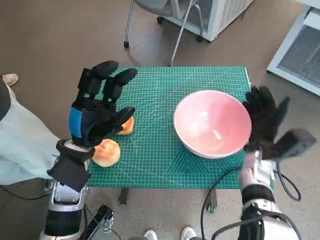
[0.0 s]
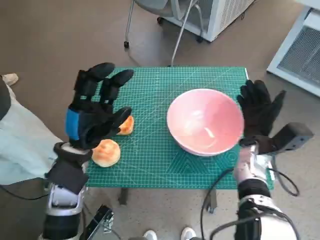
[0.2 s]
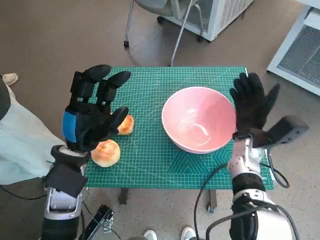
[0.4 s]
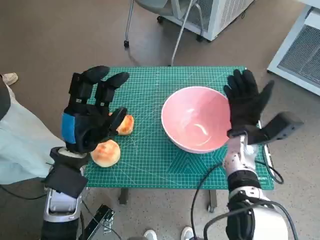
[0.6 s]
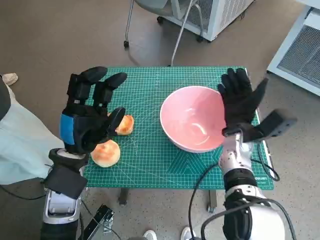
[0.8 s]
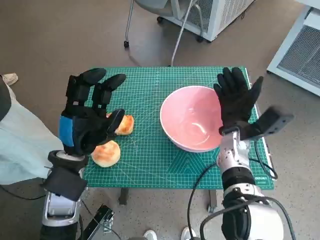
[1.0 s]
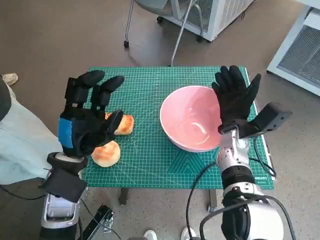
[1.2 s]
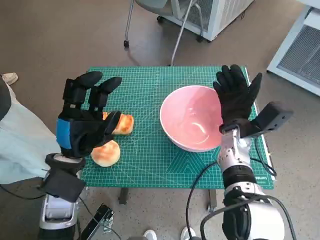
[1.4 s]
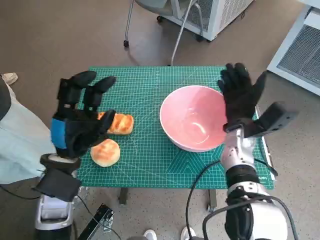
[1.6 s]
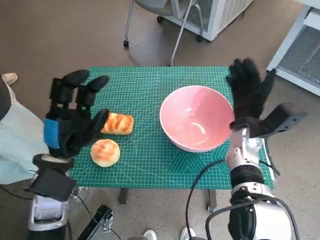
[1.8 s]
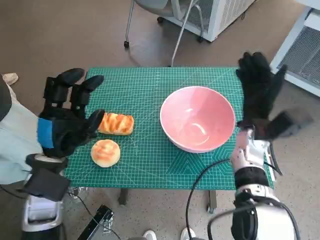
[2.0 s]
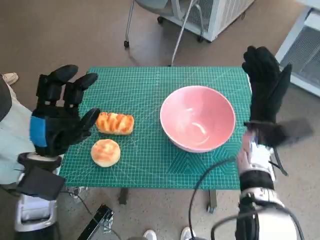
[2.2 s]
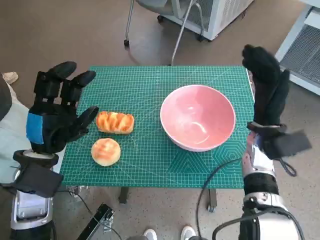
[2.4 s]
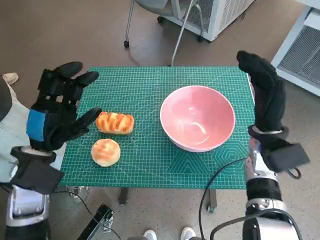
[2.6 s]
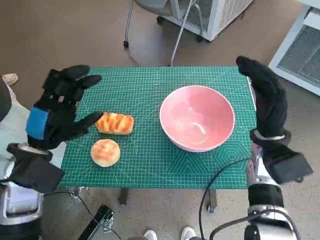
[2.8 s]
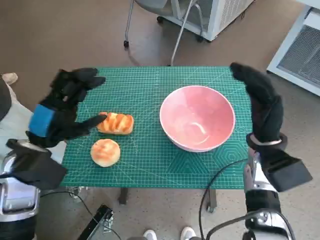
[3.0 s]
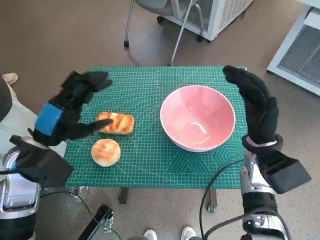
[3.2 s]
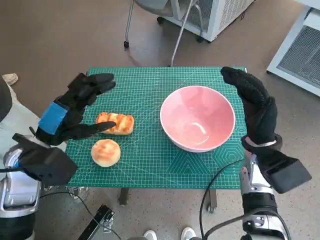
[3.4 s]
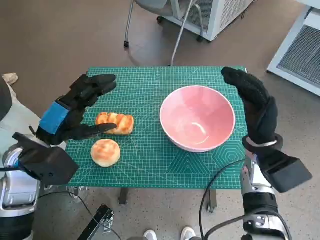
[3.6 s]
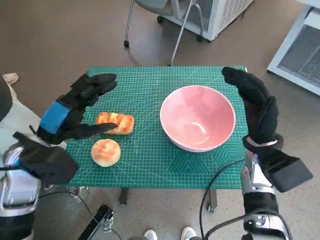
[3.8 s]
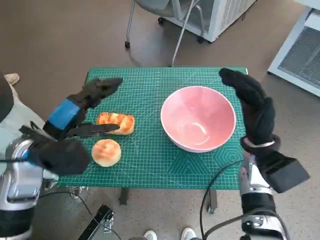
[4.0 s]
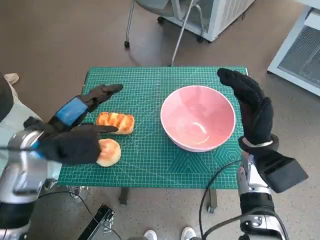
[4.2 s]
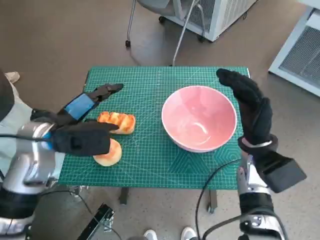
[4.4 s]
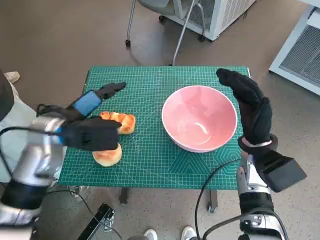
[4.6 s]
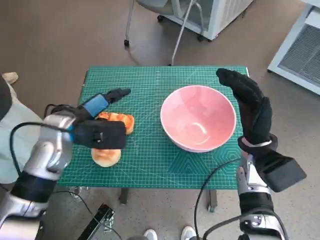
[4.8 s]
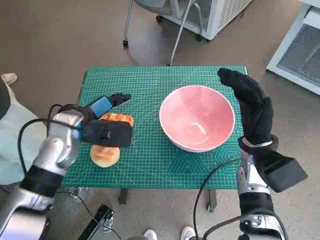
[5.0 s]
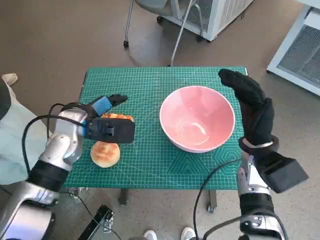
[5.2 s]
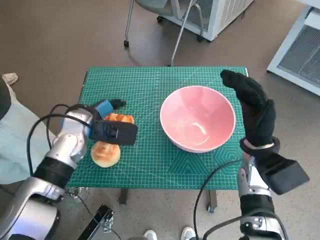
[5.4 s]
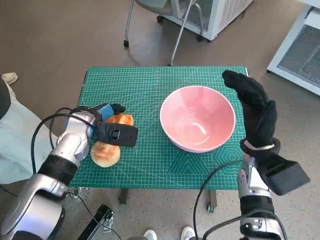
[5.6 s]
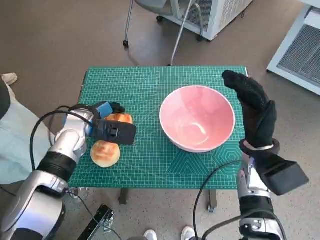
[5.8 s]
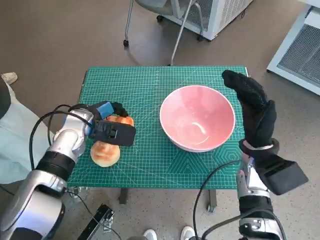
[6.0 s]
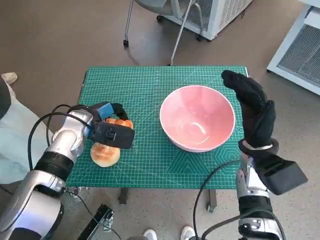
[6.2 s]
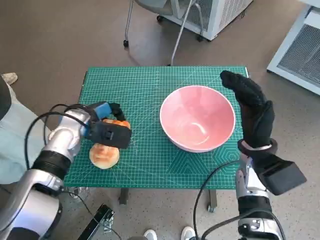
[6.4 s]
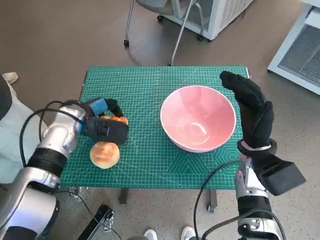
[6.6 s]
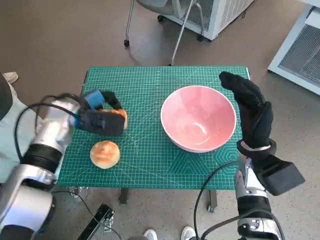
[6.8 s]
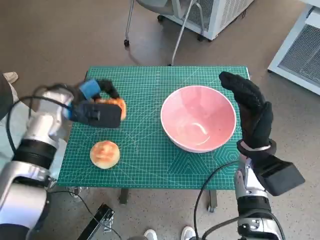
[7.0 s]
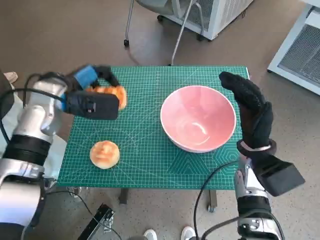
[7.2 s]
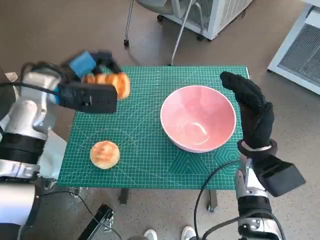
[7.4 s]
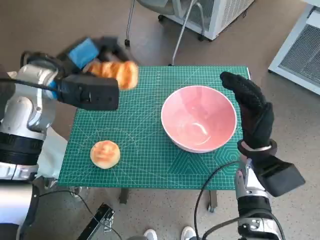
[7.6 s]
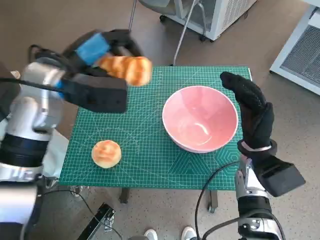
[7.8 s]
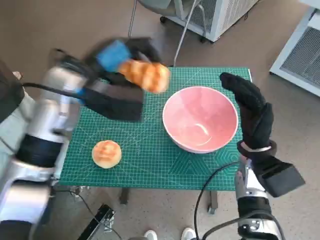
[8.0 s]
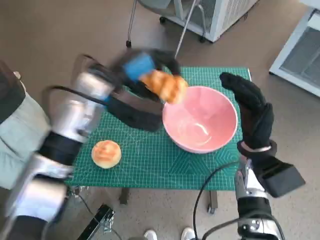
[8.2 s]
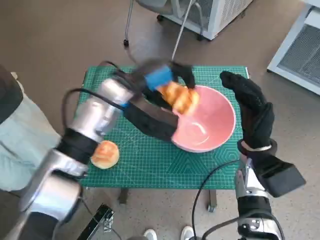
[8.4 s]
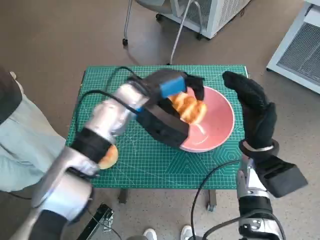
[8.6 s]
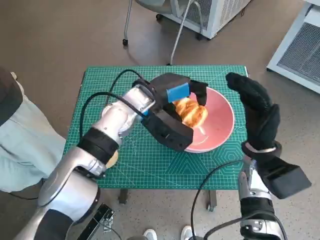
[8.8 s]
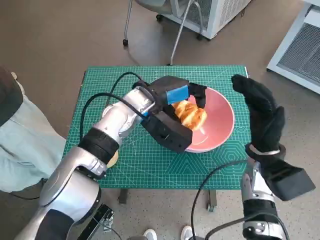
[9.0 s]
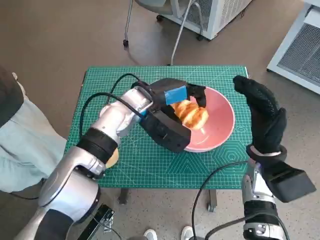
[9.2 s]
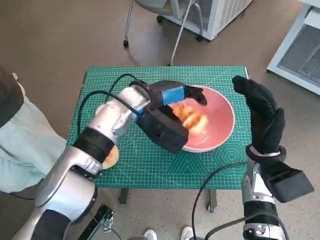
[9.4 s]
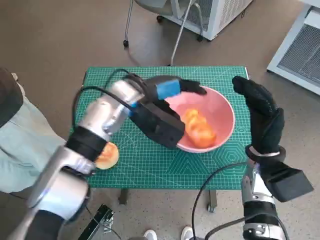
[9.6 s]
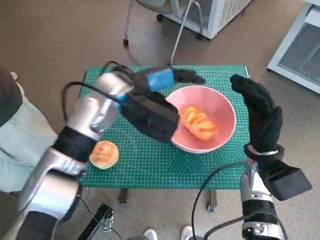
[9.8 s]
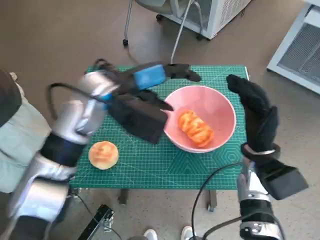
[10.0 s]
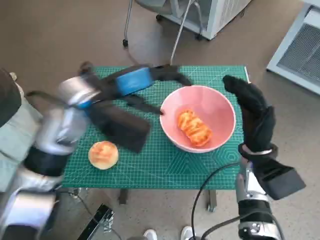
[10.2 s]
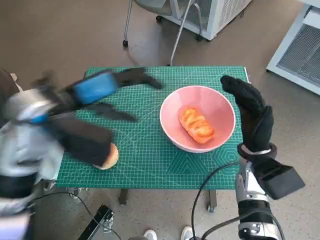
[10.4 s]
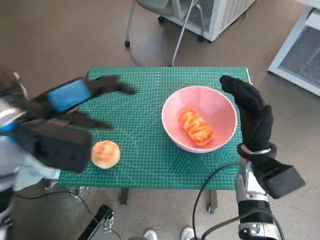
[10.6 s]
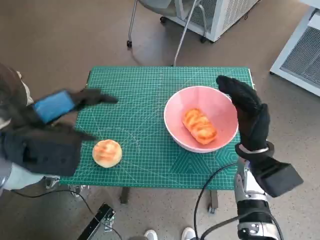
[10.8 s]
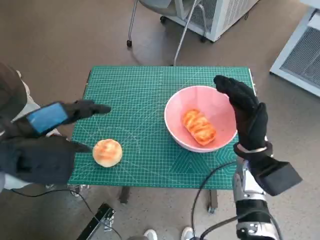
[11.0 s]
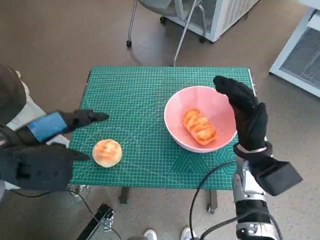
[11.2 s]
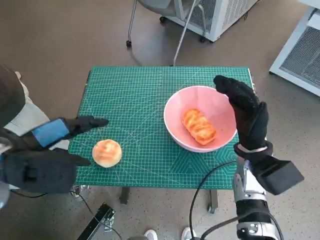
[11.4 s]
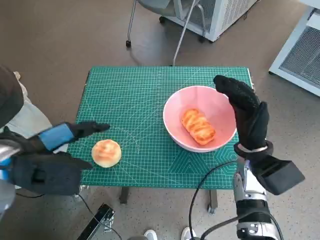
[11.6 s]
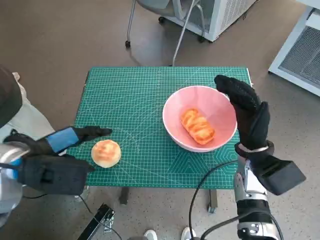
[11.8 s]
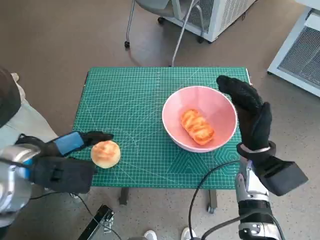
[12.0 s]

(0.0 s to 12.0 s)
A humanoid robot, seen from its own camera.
Task of the whole recording: Push the bowl to the center of the table and put the bread into the bowl.
Step, 0.0 s - 2.0 s: Move the pink bowl to the center of table with right hand.
Step, 2.2 s - 6.2 s: Grasp the long bread with left hand.
Step, 6.4 s - 9.6 s: Place the long bread in pink bowl with left hand.
0.0 s - 1.6 s: The right hand travels to the left by about 5 cm.
1.6 s - 3.0 s: The right hand ends up some 5 cm from where it was. Meanwhile the left hand moves to the left, approximately 5 cm.
3.0 s - 4.4 s: The left hand ends up some 5 cm from where it was.
4.4 s - 6.0 s: The left hand heads forward and downward, covering approximately 10 cm.
6.0 s - 7.6 s: The left hand heads upward, covering about 10 cm.
7.6 s - 9.0 s: The left hand shifts approximately 15 cm to the right and downward.
9.0 s - 10.4 s: The left hand is displaced to the left, upward and backward by about 15 cm.
10.4 s - 12.0 s: The left hand goes some 10 cm to the left, downward and backward.

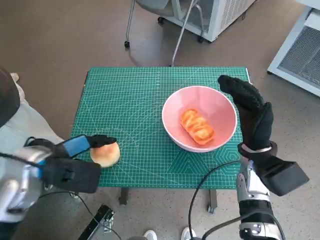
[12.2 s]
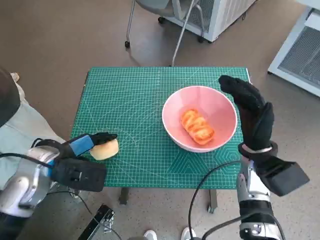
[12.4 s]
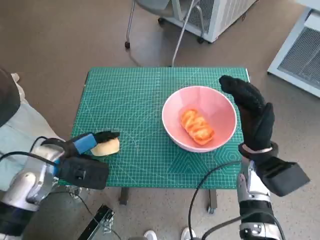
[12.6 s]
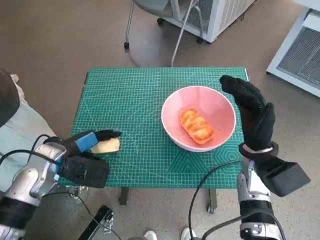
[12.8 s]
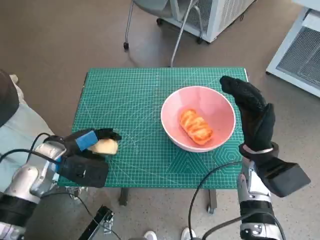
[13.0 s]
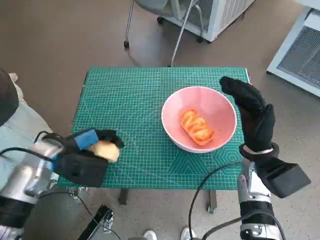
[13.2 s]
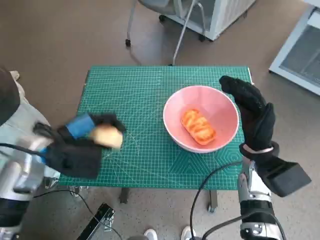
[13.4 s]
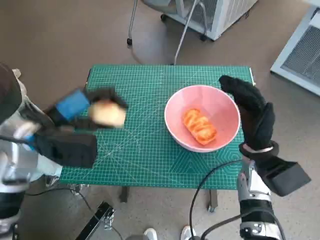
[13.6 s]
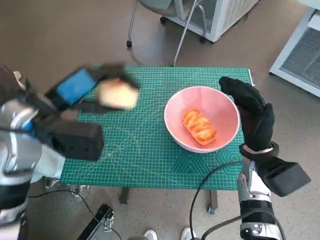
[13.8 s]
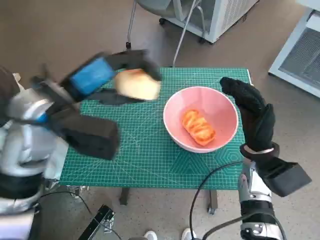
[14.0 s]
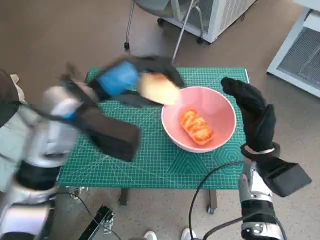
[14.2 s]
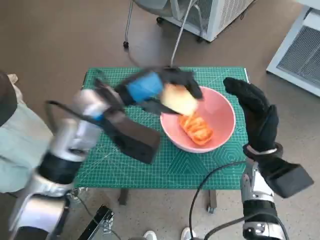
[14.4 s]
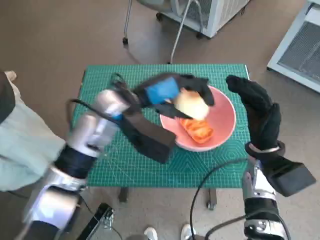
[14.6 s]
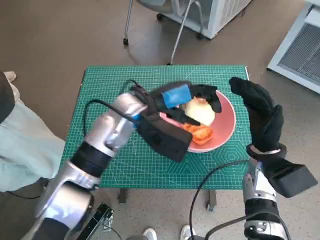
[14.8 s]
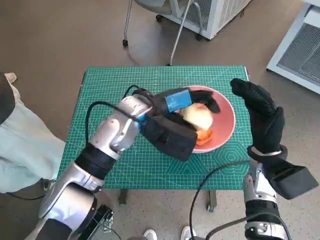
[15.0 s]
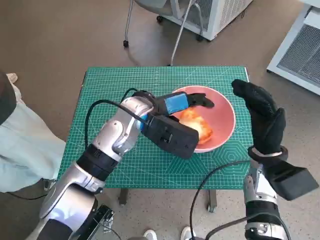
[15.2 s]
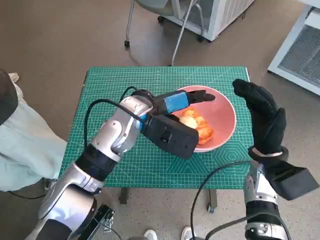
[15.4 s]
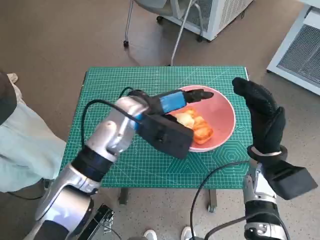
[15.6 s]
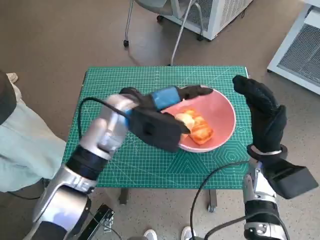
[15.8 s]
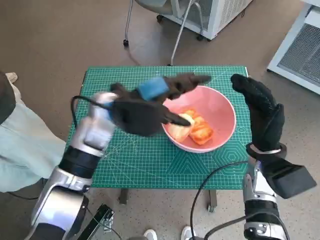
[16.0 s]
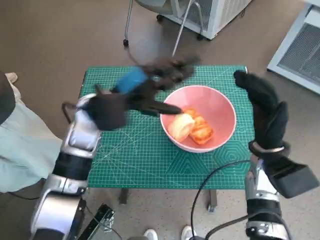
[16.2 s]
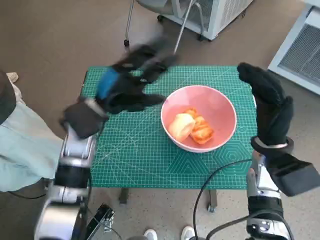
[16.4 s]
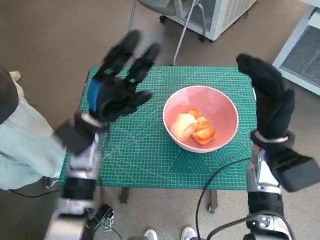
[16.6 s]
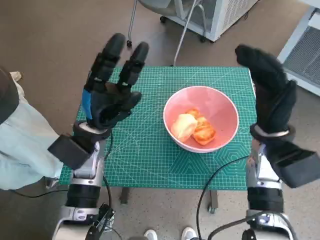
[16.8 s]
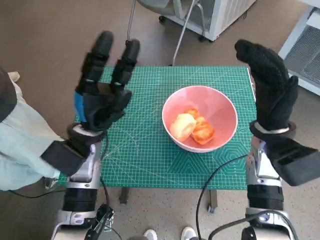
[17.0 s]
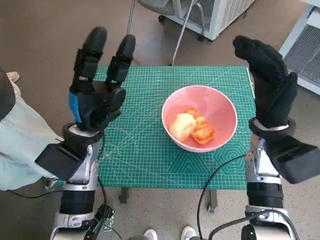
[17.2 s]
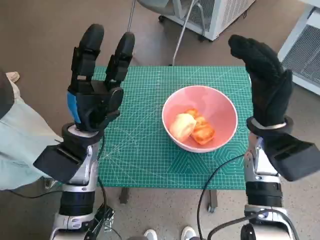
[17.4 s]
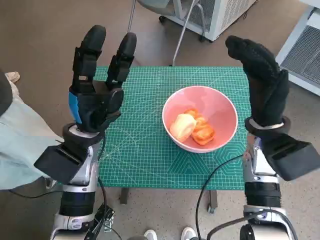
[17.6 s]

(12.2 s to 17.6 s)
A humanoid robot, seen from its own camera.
Task of the whole recording: Push the bowl to the center of the table and put the bread into the bowl.
Step, 13.2 s - 15.6 s: Place the round bread in pink bowl with left hand.
13.6 s - 15.0 s: The left hand heads to the right, covering roughly 15 cm.
15.0 s - 16.2 s: The left hand moves to the left, some 5 cm.
16.2 s - 17.6 s: The left hand goes about 5 cm backward. Meanwhile the right hand travels upward by some 5 cm.

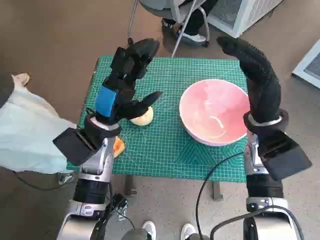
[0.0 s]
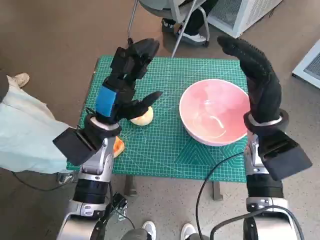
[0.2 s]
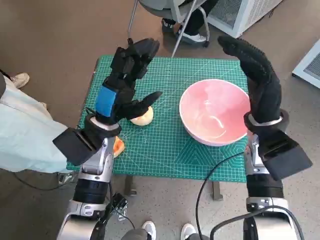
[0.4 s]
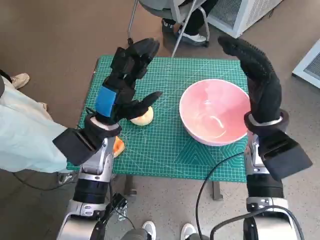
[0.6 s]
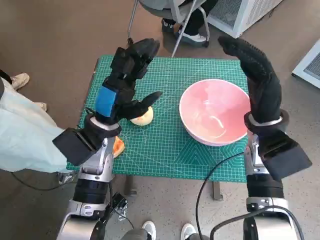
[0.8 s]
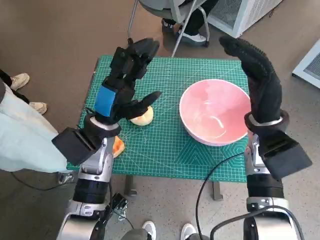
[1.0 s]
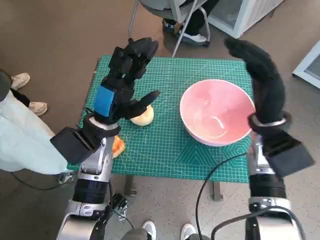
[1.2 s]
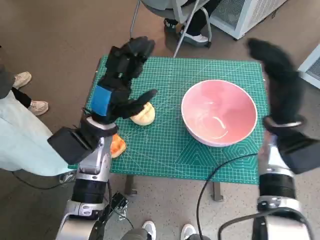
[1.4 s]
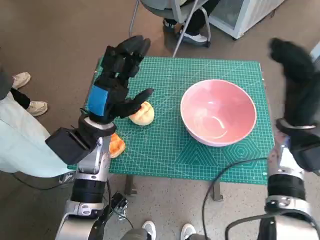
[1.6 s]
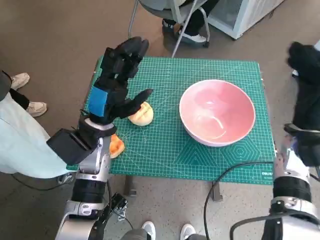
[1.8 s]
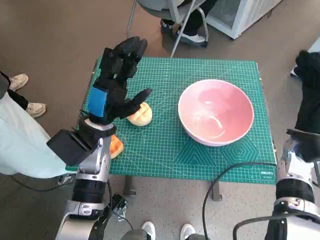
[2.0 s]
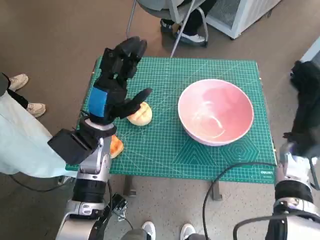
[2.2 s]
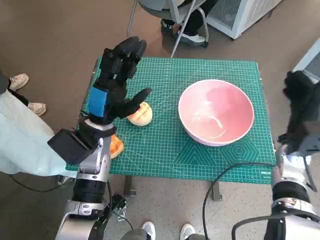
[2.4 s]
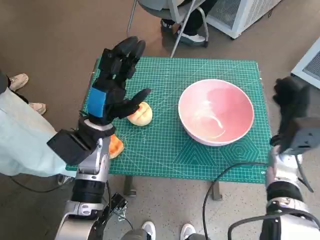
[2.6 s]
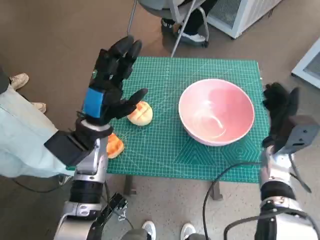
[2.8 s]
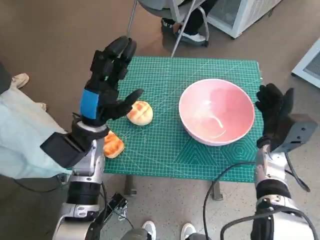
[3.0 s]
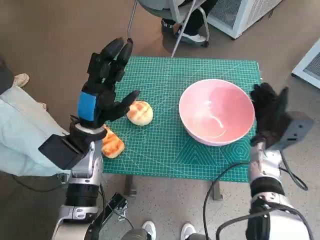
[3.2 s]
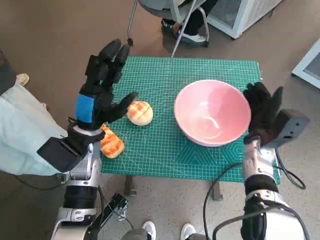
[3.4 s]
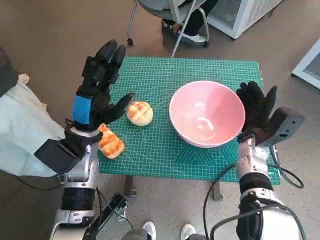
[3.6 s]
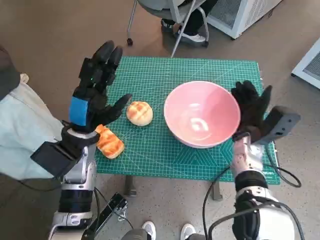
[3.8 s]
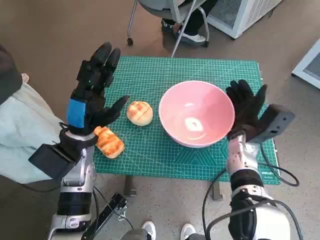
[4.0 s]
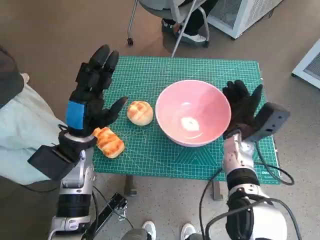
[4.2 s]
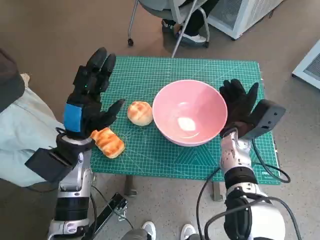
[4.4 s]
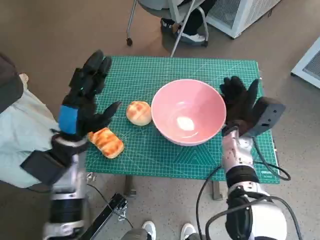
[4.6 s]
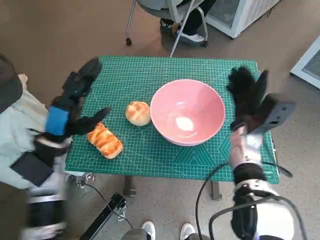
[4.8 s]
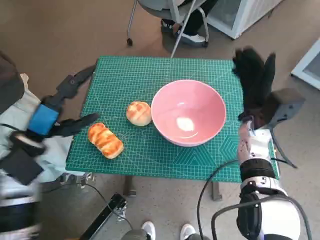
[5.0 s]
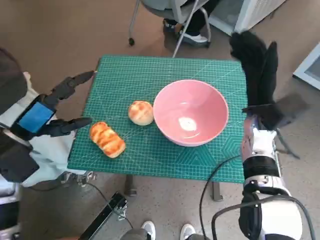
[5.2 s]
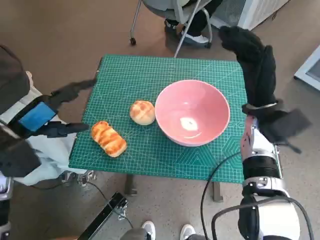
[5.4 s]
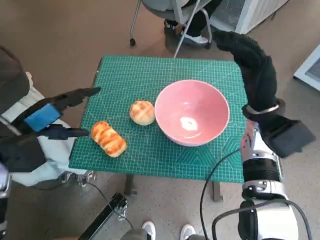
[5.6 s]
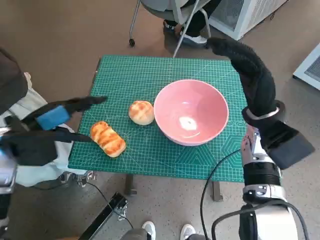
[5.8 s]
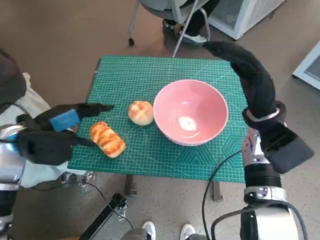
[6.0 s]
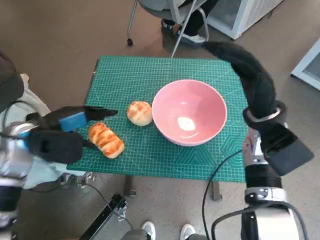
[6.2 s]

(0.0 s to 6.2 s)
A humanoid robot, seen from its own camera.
Task of the whole recording: Push the bowl to the center of the table and put the bread into the bowl.
Step, 0.0 s - 4.6 s: Move the pink bowl to the center of table with right hand.
1.6 s - 3.2 s: The right hand heads downward, covering approximately 10 cm.
3.2 s - 4.6 s: The right hand moves to the left, about 5 cm.
4.6 s - 6.2 s: The left hand moves to the left and upward, approximately 10 cm, while the right hand goes some 10 cm upward.
